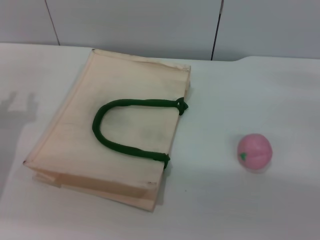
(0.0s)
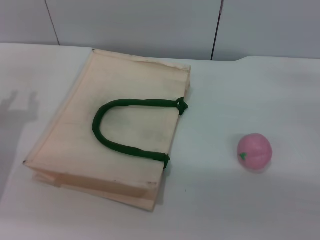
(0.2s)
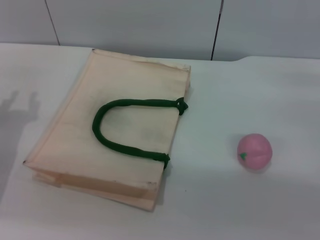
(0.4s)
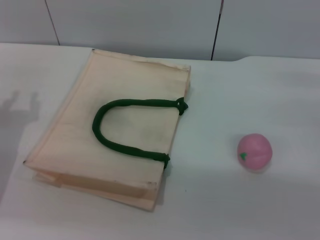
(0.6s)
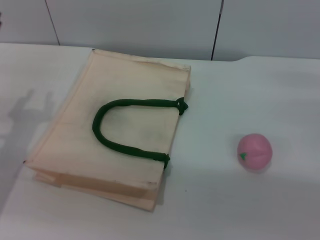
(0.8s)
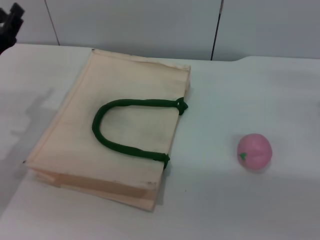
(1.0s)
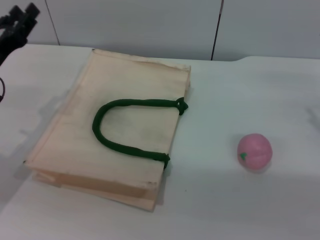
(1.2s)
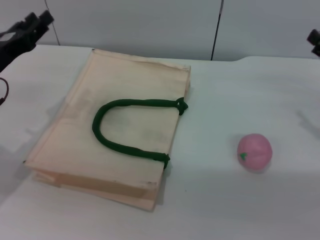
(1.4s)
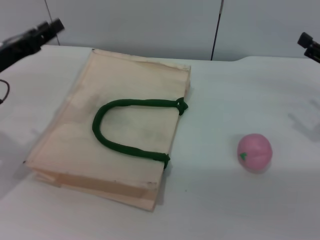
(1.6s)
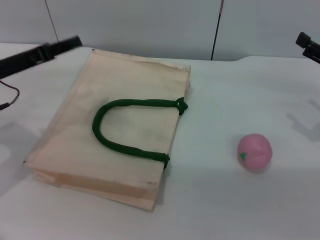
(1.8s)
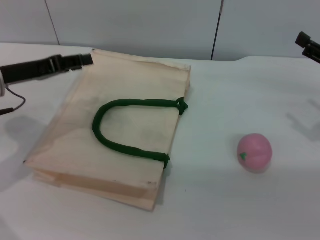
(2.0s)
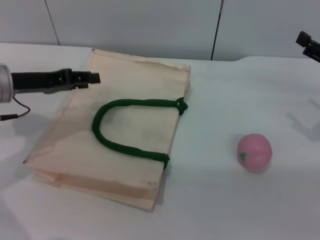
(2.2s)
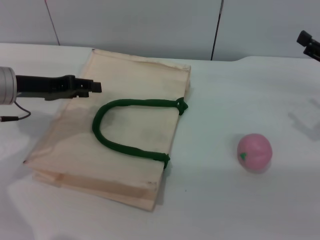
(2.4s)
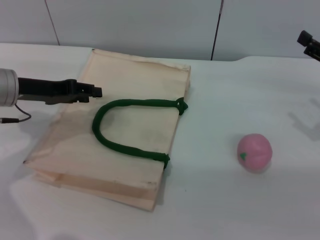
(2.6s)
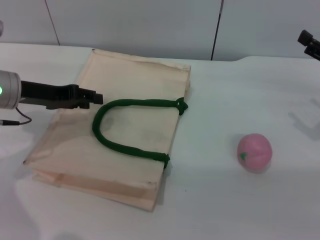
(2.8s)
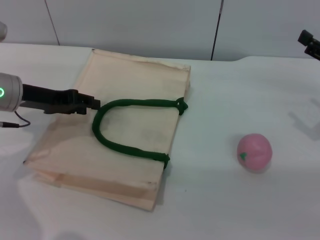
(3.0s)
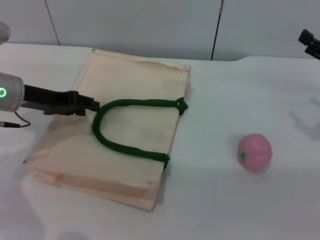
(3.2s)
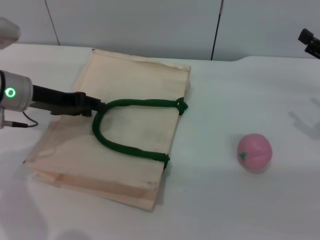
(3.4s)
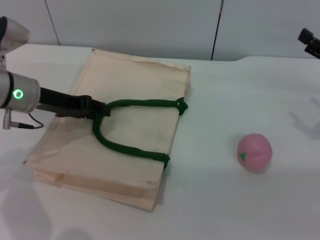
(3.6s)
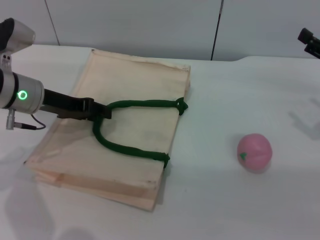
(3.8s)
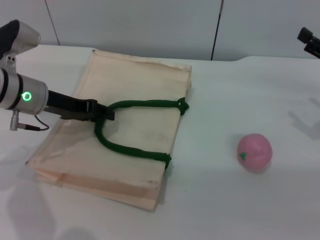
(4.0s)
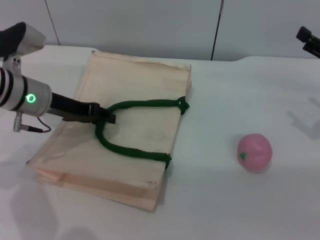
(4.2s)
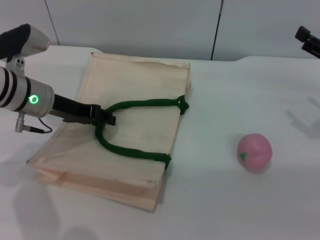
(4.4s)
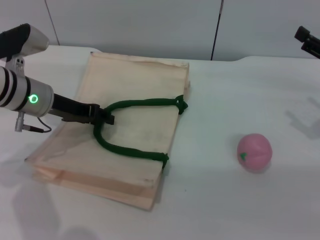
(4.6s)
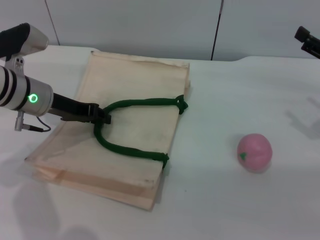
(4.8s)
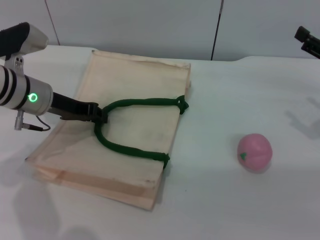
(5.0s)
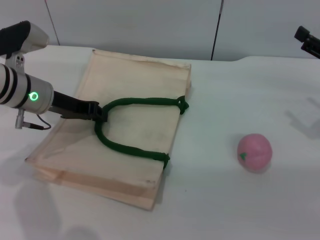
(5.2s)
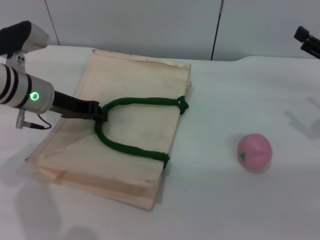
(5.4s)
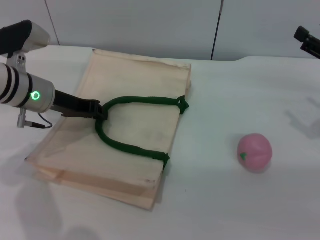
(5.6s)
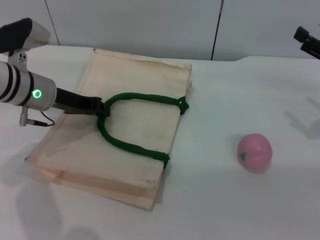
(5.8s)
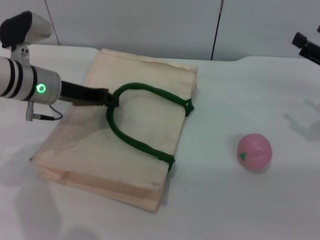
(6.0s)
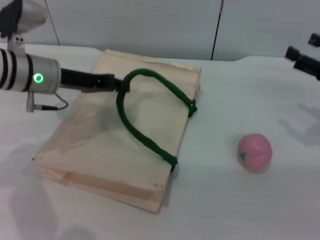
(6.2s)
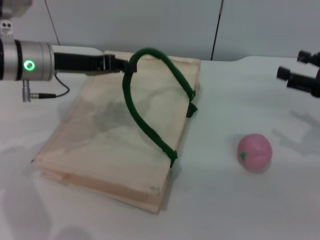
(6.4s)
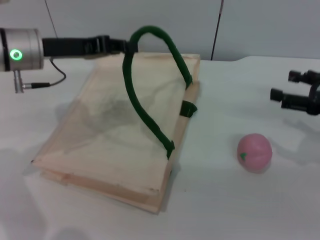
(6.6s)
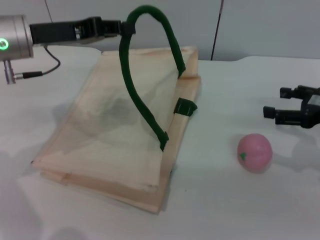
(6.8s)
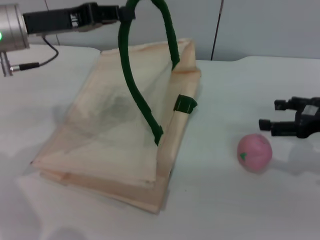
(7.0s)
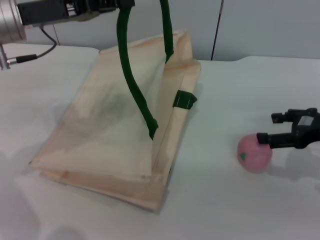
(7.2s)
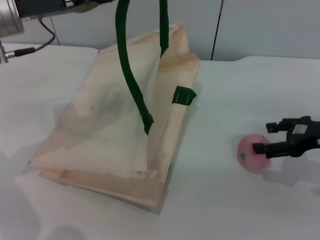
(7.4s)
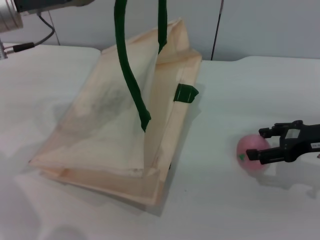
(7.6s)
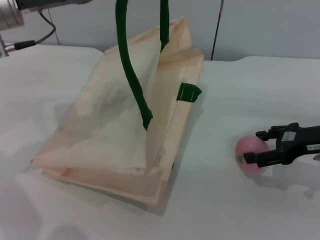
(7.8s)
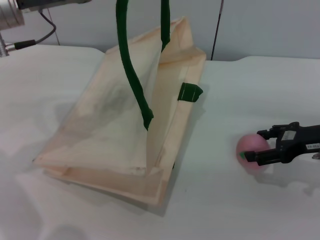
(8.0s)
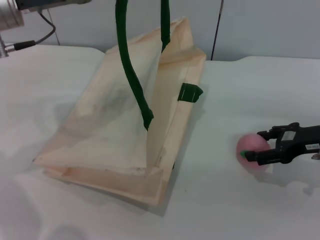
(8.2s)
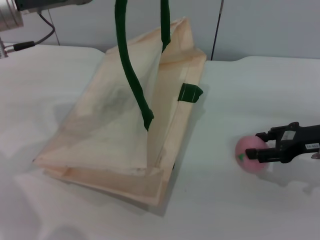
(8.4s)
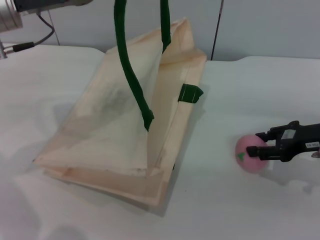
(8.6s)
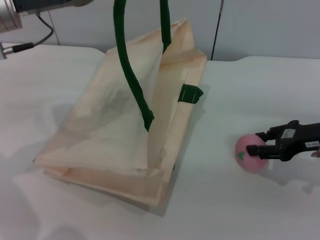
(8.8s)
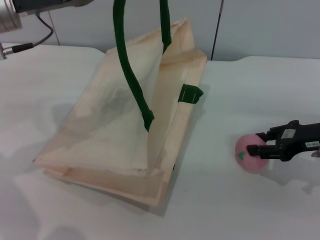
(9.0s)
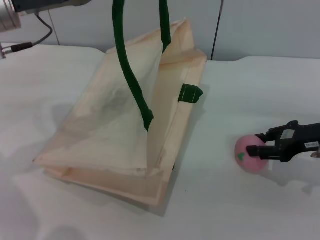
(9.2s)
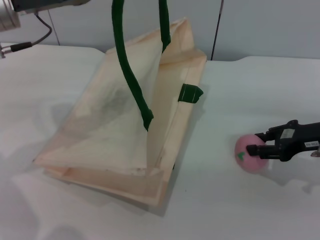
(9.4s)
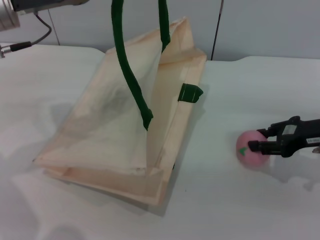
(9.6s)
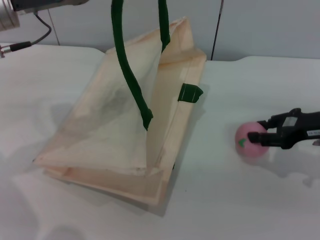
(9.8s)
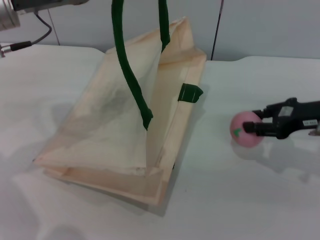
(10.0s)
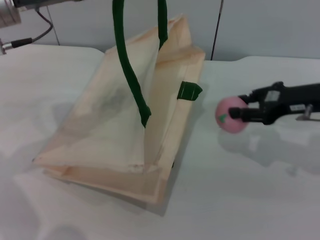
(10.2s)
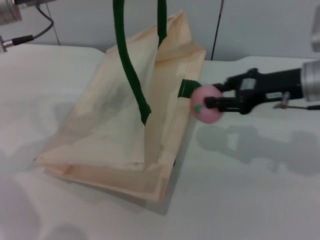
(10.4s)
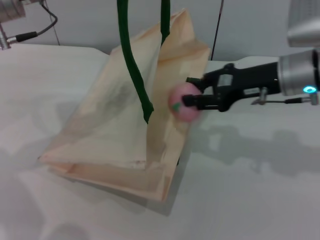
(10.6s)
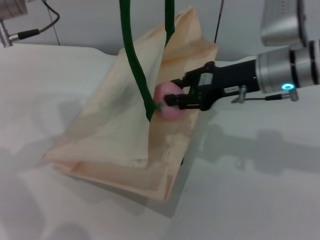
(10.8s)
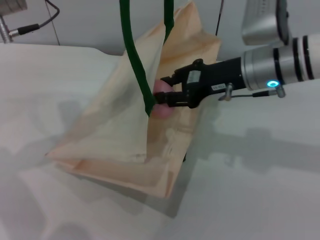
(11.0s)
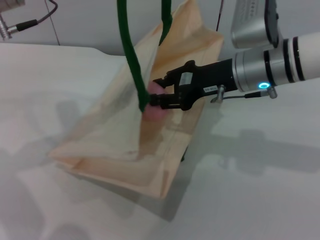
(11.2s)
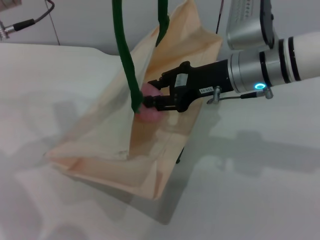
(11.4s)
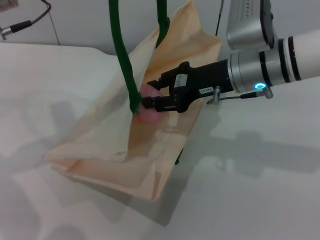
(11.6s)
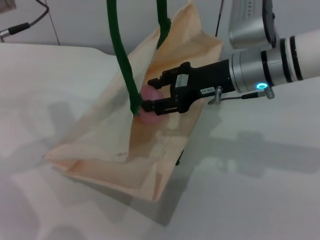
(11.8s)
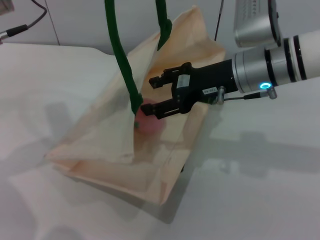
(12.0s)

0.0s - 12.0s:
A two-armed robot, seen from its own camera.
Task of the whole recording: pick up the peach from the table and place it in the white handbag.
Step, 0.0s - 5.8s: Lift the woven bag with the left gripper to open it.
Step, 6.0s - 10.2s: Pick up the peach with the right gripper.
0.0s - 1.6s: The left gripper moves some 5 cm.
3.0s - 4.4s: The grippers make only small movements.
4.4s - 6.0s: The left gripper closes its fingers.
6.0s - 7.6s: The left gripper is displaced upward by some 10 cm.
7.6s - 9.0s: The right gripper closes up.
9.0s - 10.4s: The right gripper is displaced to the left and upward by approximately 10 cm.
10.4s - 12.0s: The right gripper is displaced to the left by some 10 cm.

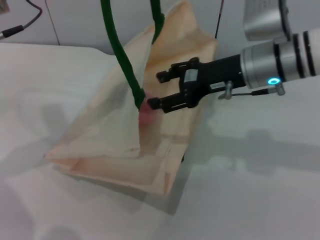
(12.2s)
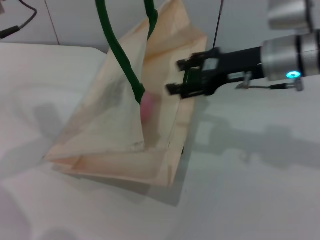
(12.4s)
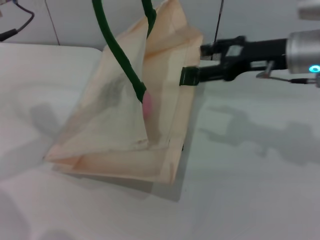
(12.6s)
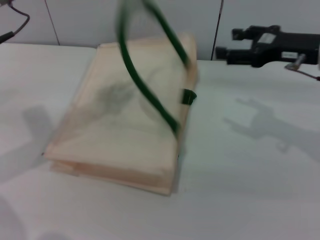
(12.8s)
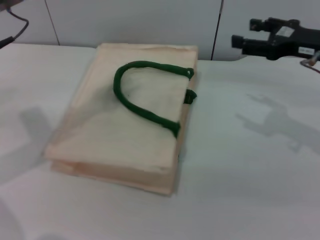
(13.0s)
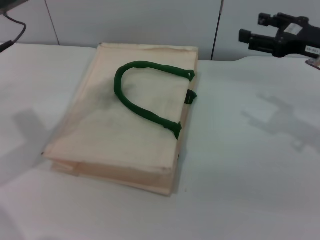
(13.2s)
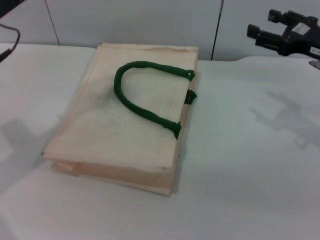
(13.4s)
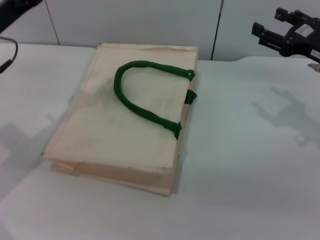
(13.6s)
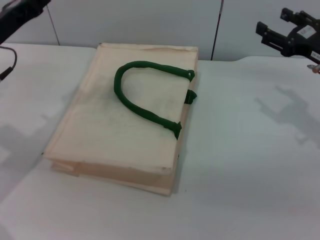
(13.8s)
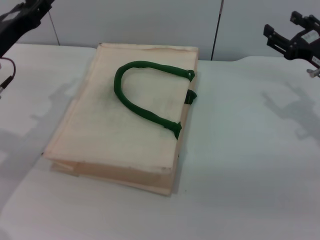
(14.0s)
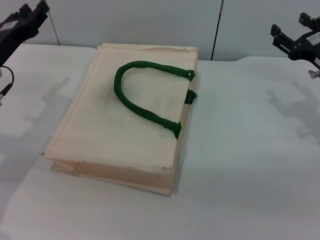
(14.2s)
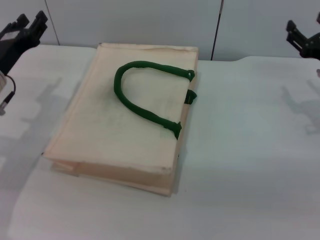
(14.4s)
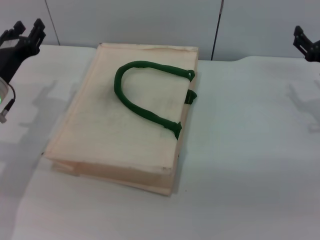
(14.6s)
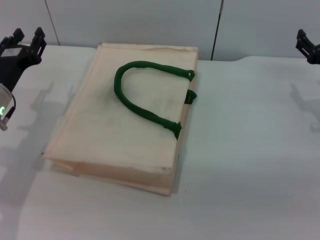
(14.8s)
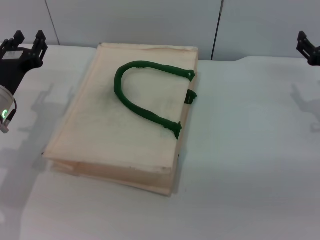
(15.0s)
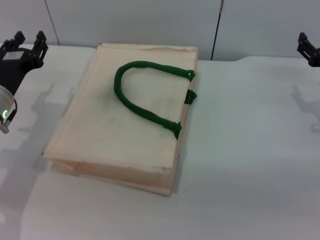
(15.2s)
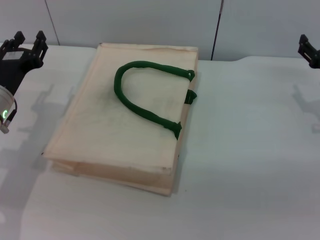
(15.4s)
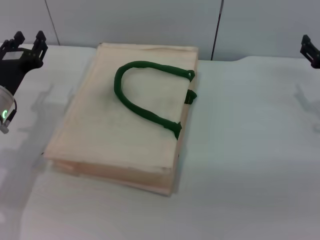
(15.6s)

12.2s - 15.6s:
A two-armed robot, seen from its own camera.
Task of the whole recording: pick up the peach from the table and place it in the white handbag.
Step, 12.8s - 13.2s: Lower the woven bag with the left gripper to close it.
12.2s - 13.8s: The left gripper goes some 10 cm downward, and opens its fingers; the right gripper heads to the right, covering roughly 15 cm.
13.8s - 15.6s: The right gripper moves approximately 5 cm, while the left gripper goes some 10 cm downward.

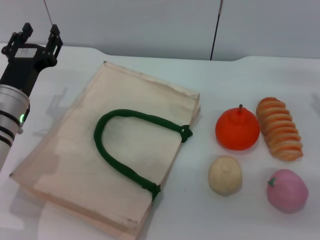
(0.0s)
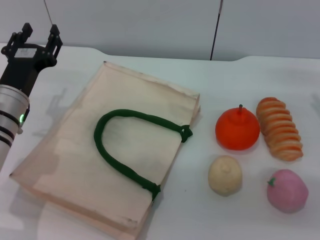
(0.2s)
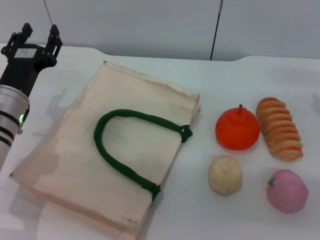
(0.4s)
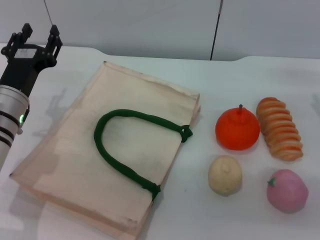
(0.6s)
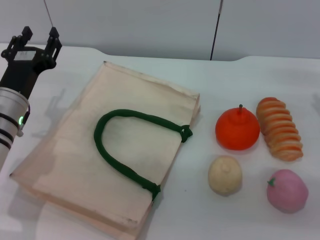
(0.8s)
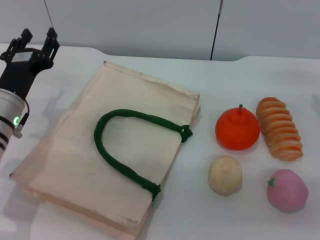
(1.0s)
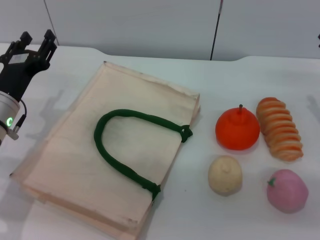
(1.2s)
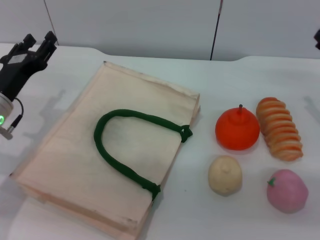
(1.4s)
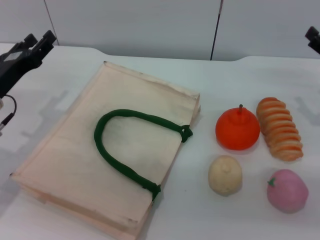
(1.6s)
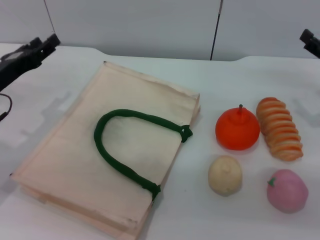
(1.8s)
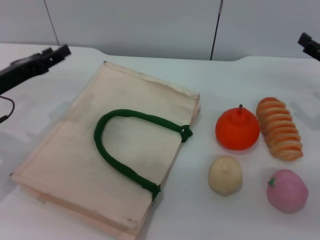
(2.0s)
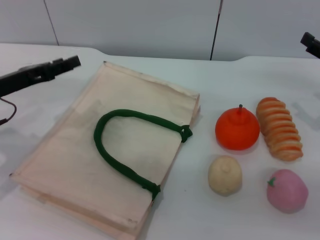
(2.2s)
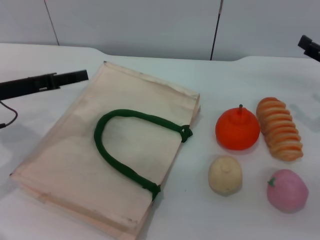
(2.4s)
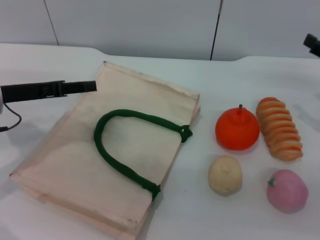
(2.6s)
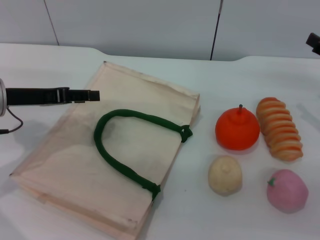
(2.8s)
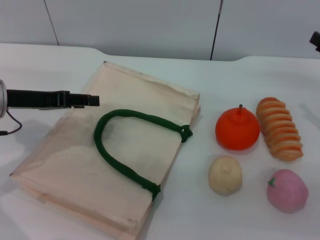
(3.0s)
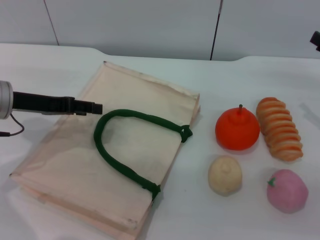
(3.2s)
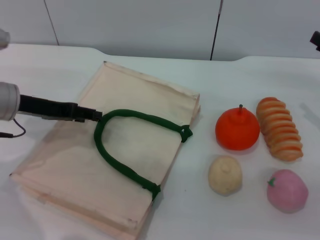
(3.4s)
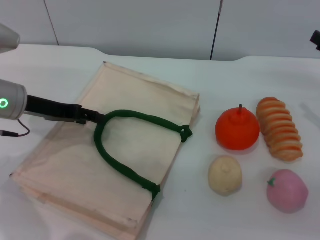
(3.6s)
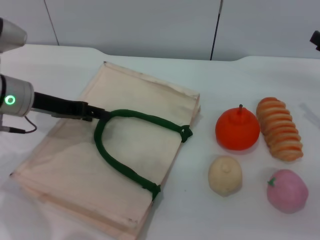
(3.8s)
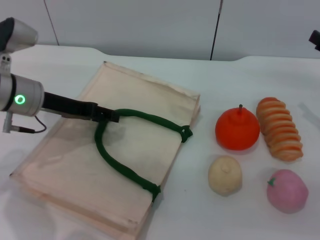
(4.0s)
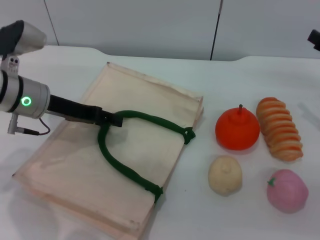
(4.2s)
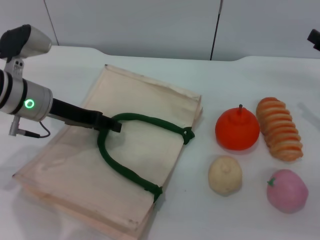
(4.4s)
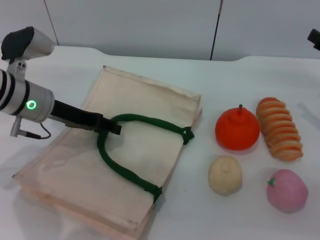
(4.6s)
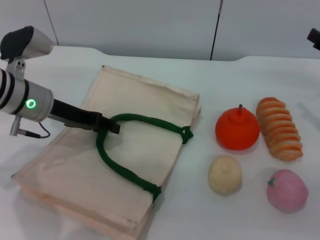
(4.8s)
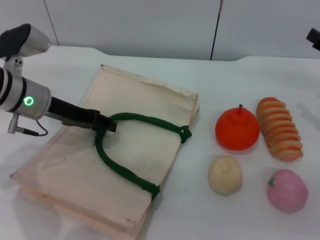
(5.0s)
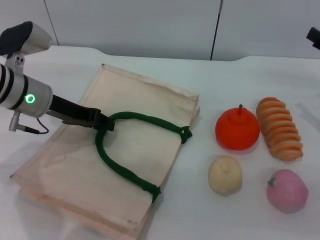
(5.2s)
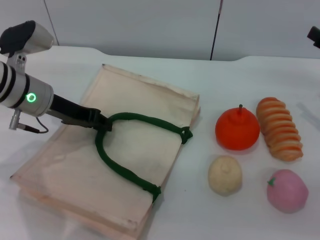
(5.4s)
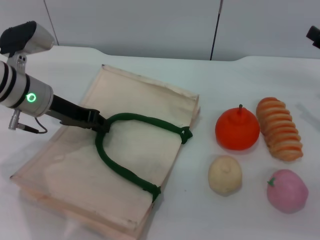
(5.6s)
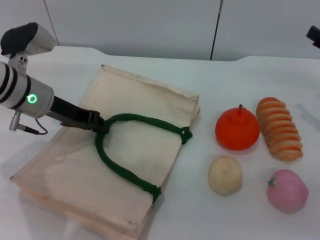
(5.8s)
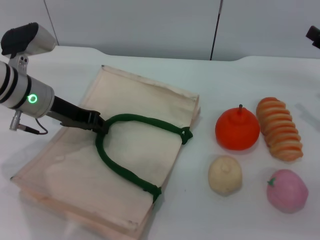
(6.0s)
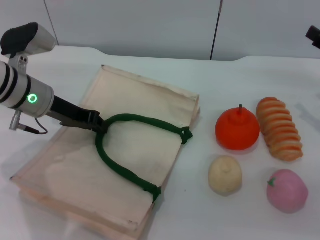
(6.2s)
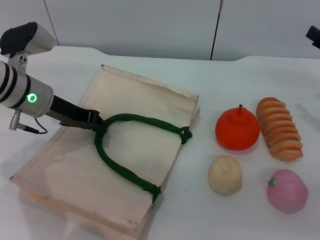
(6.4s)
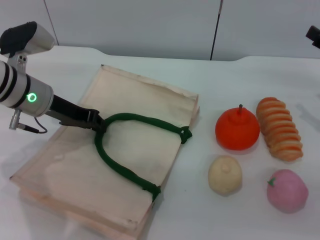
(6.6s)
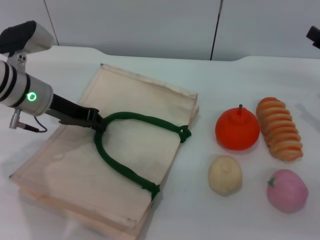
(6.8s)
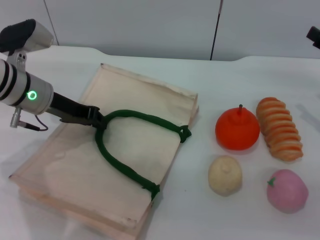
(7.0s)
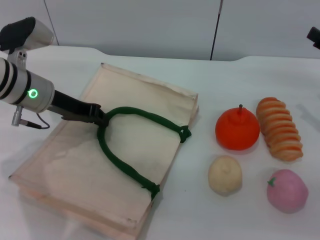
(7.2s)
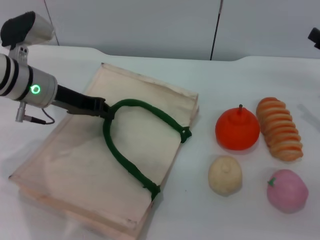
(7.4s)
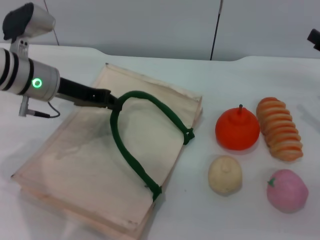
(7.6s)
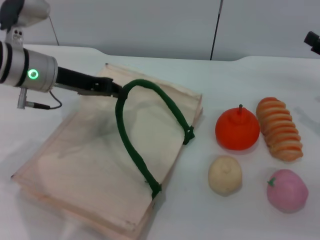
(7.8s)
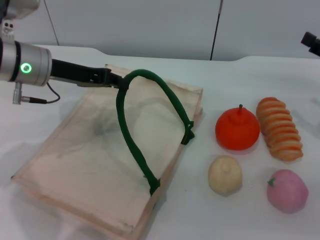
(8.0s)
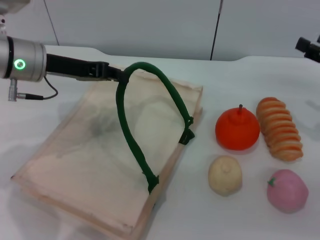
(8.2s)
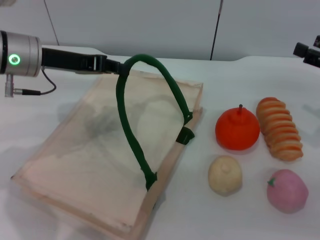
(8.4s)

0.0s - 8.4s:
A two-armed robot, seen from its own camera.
Task of the whole recording: pick up the orange from the table and place it in the white handbag.
Step, 0.0s - 8.4s: Lift the woven bag with the left gripper to open it.
0.0s - 1.4s: The grippers move only a little.
1.4s - 2.8s: The left gripper heads upward, covering roughly 5 cm.
2.8s - 4.2s: The left gripper changes place by approximately 5 cm.
4.2s - 5.6s: The left gripper closes up.
5.6s - 7.0s: The left gripper closes its fingers.
7.0s - 8.4s: The left gripper goes about 5 cm upward.
